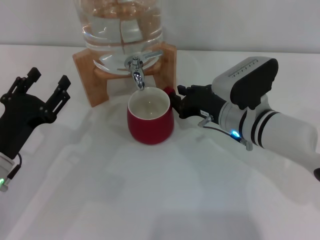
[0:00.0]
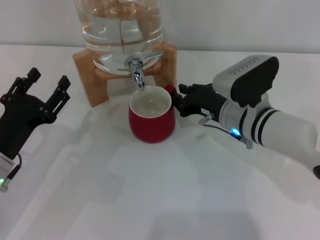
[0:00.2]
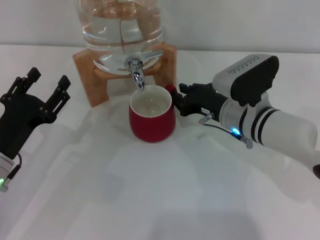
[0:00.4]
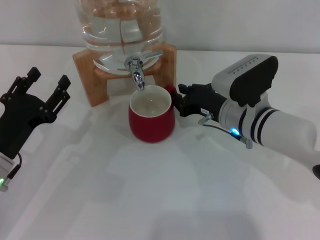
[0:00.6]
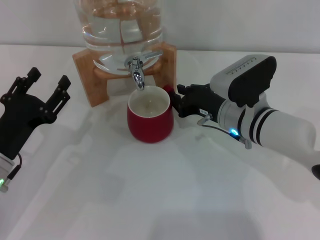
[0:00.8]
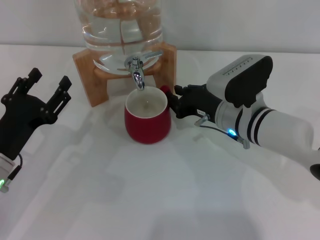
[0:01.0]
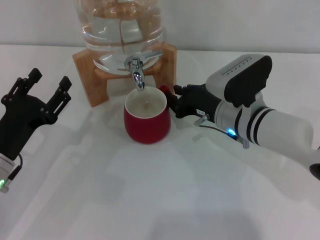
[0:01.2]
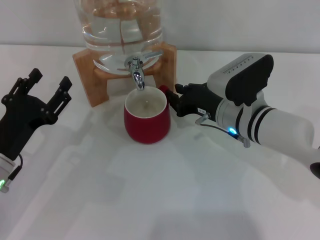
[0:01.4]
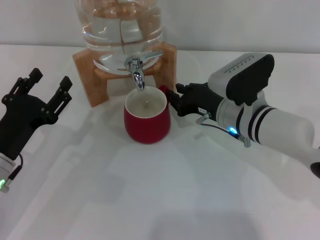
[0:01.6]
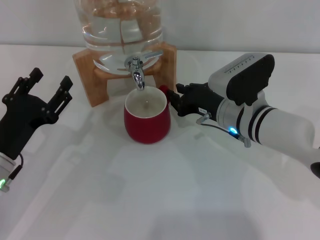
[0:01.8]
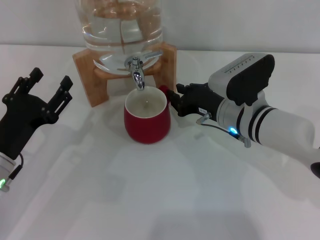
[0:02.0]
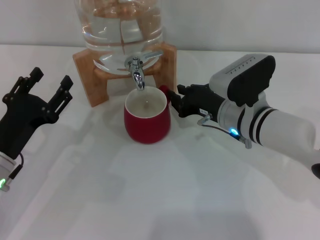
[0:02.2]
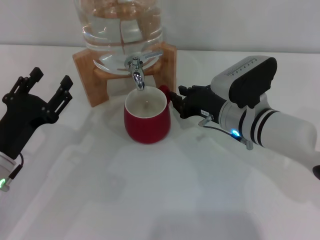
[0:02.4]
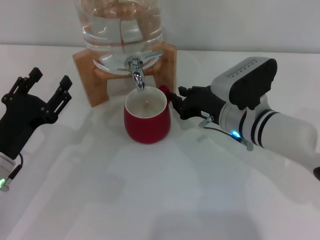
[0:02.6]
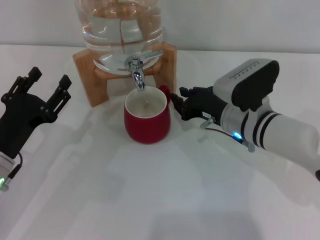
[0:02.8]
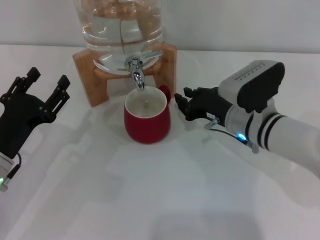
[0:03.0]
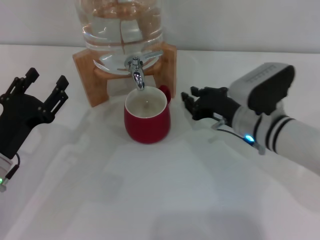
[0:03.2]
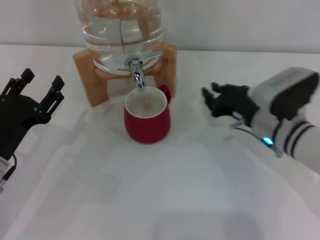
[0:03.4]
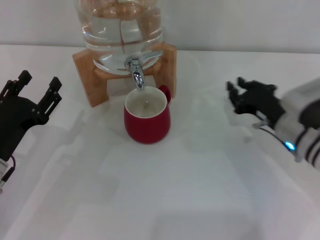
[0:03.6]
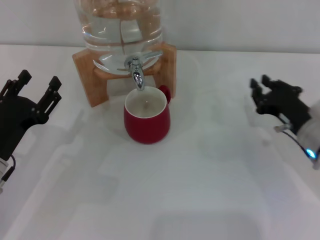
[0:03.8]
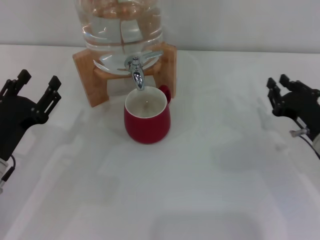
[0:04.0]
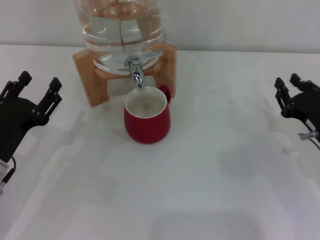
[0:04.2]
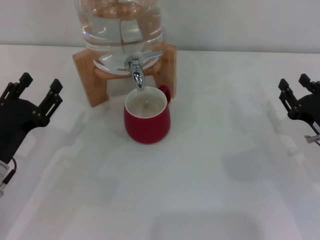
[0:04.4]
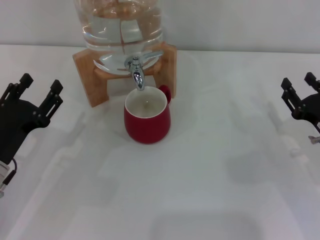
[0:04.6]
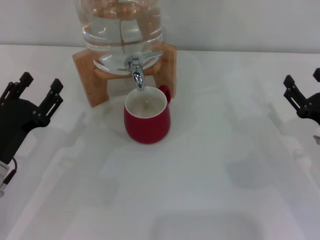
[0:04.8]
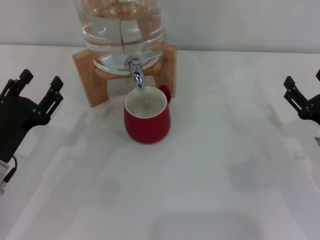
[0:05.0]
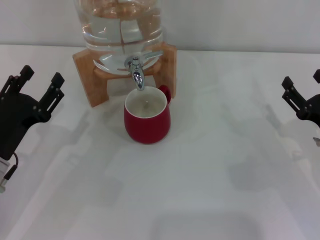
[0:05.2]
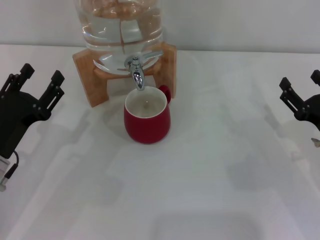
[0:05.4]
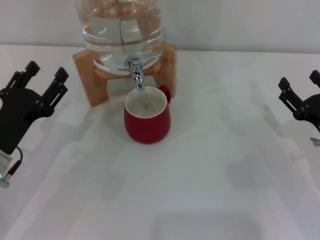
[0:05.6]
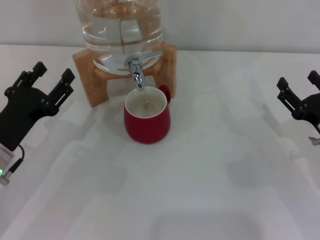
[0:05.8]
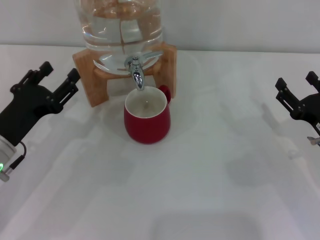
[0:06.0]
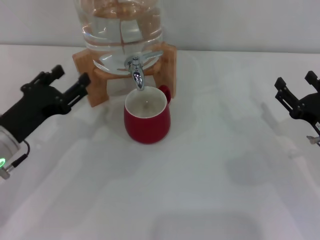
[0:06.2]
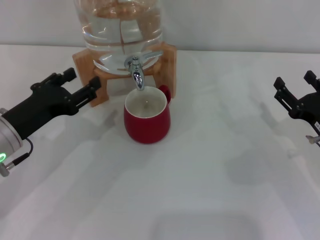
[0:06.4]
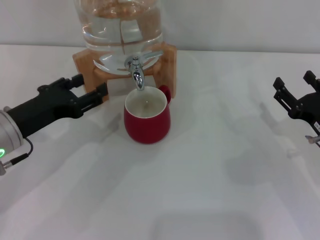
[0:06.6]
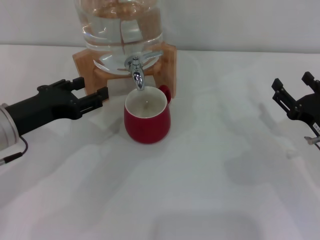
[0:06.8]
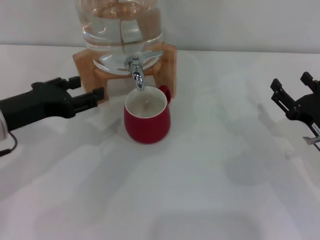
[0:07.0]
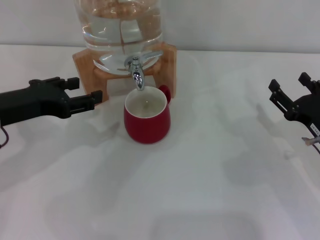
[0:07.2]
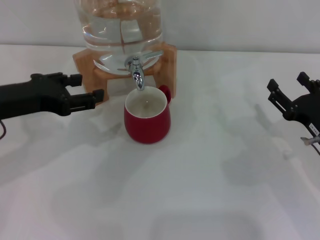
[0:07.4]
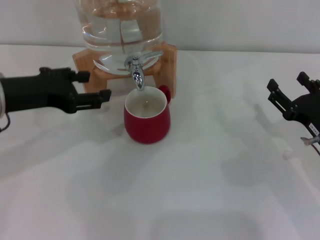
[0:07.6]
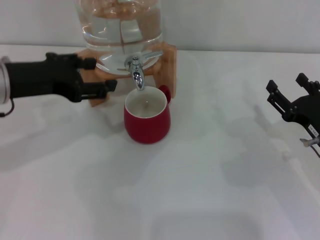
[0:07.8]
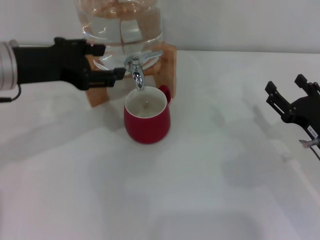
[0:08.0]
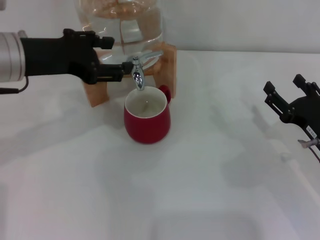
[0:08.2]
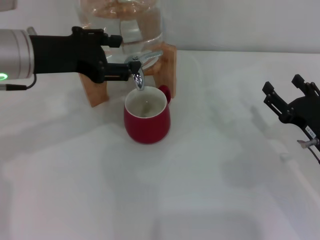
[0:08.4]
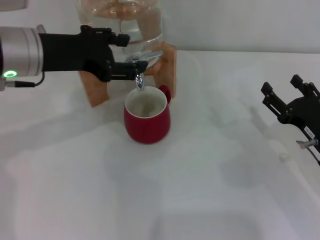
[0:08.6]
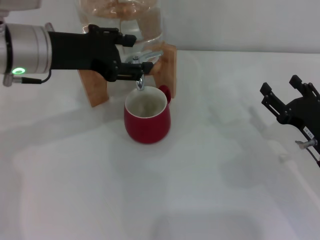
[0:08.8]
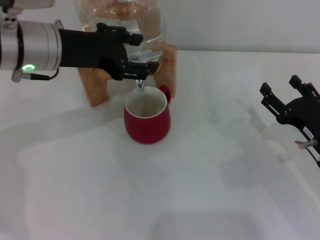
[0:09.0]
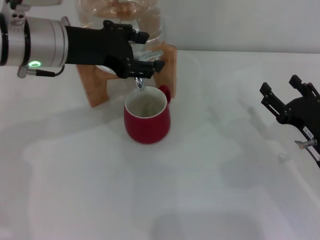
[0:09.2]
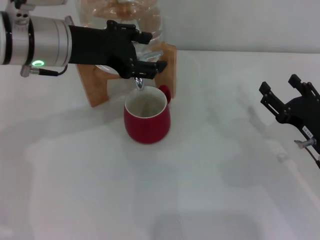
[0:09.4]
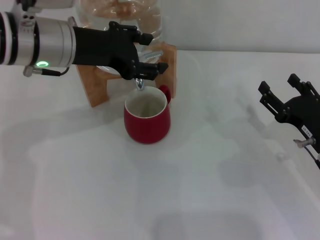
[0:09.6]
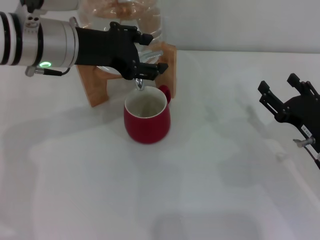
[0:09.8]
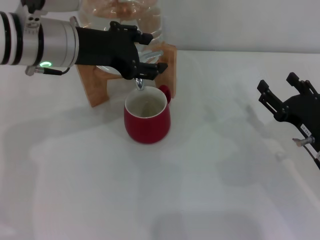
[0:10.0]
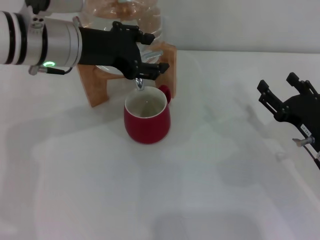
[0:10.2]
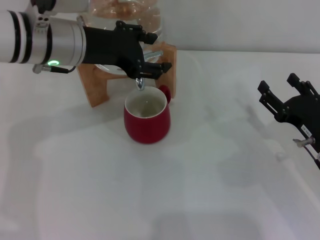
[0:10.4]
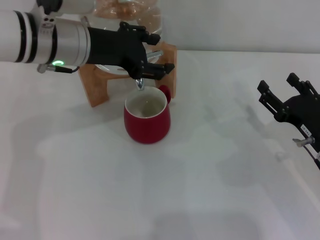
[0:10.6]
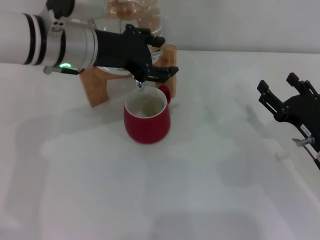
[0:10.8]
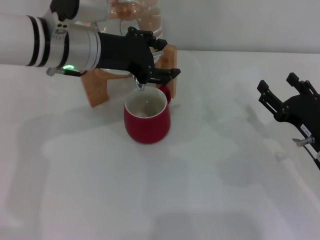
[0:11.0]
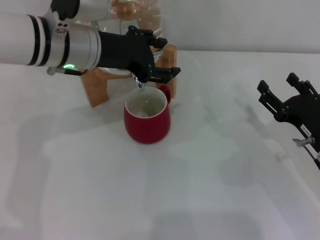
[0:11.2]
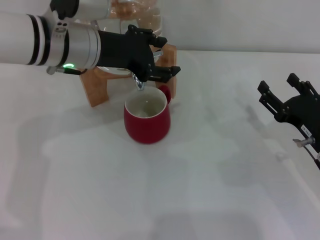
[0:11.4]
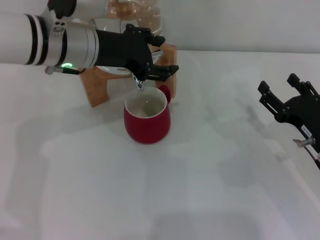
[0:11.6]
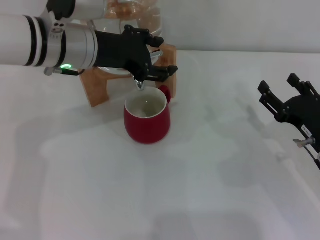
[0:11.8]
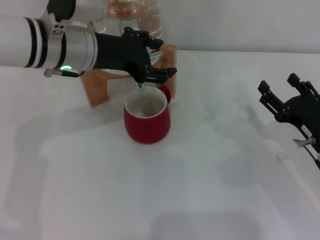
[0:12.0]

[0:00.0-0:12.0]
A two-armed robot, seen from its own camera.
Task of the whole recording: the right gripper pick up the red cup and place it horizontally under the faucet, the left gripper turn on the faucet to fill the cup, and then turn off the faucet.
Step, 0:00.0 to 0:02.8: Move the cup beneath the water dispenser nozzle with the right gripper.
0:00.0 to 0:01.6: Neither gripper changes place.
0:01.6 to 0:03.0: The grippers make only small movements.
0:03.0 to 0:04.4: The right gripper travels to the right and backward by roughly 15 cm.
0:04.4 to 0:06.0: The right gripper opens.
0:06.0 to 0:07.6: The left gripper goes roughly 10 cm upward.
0:07.6 to 0:09.0: The left gripper travels to the right and forward by roughly 10 cm.
0:09.0 to 0:12.0: The grippers make only small movements.

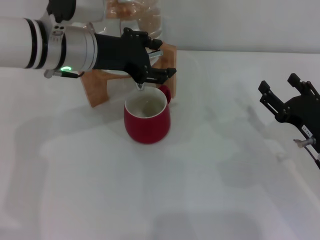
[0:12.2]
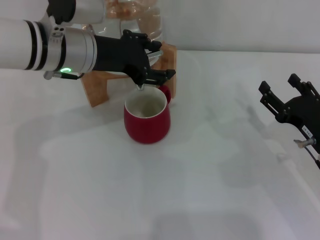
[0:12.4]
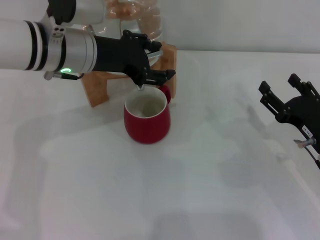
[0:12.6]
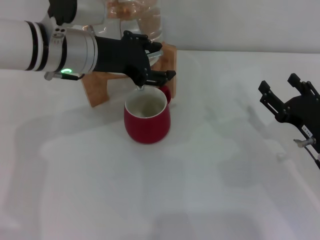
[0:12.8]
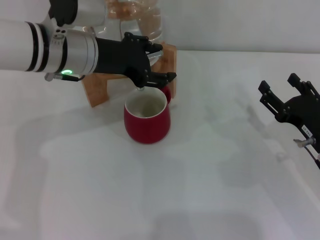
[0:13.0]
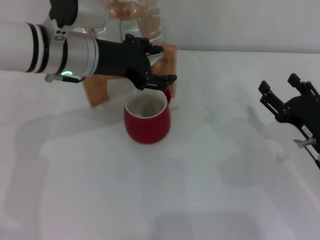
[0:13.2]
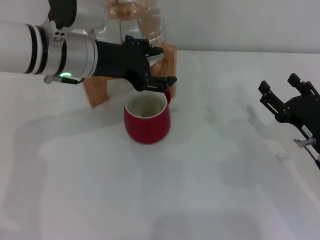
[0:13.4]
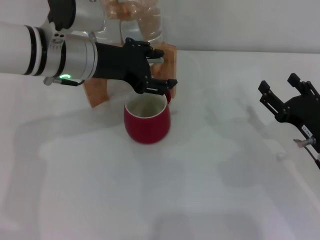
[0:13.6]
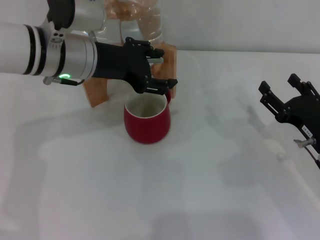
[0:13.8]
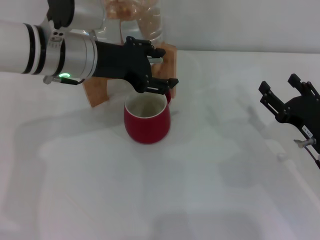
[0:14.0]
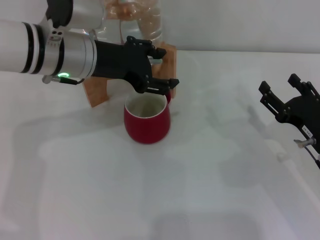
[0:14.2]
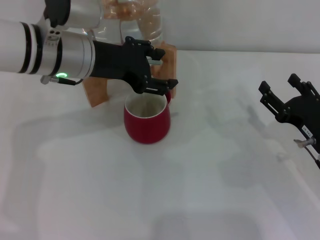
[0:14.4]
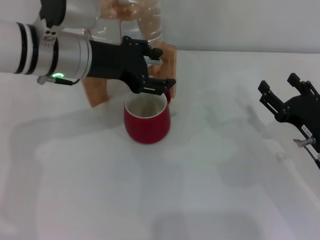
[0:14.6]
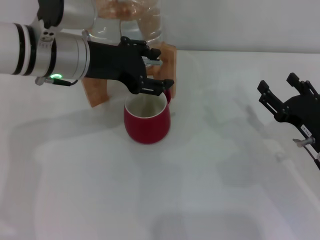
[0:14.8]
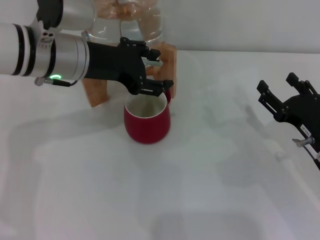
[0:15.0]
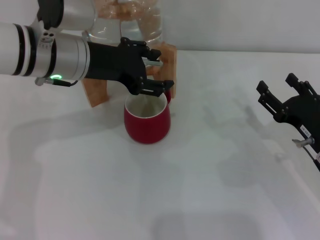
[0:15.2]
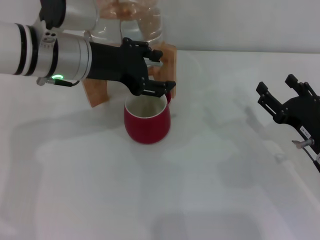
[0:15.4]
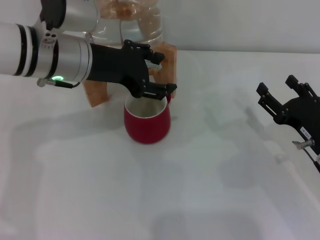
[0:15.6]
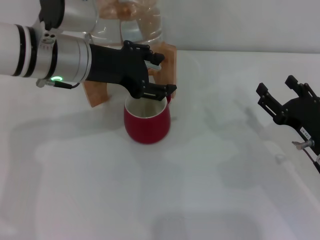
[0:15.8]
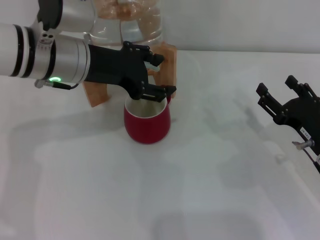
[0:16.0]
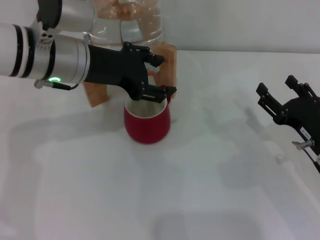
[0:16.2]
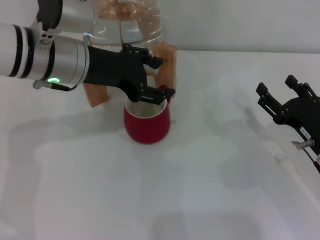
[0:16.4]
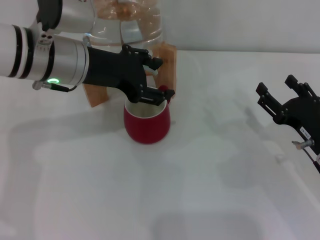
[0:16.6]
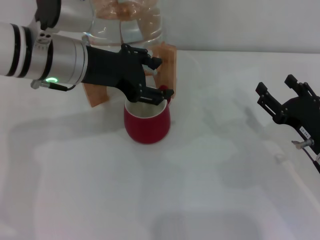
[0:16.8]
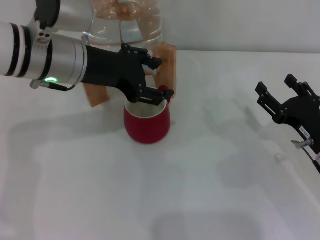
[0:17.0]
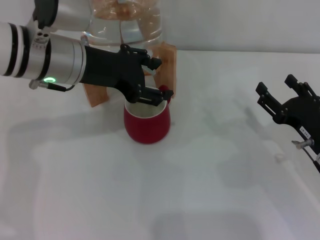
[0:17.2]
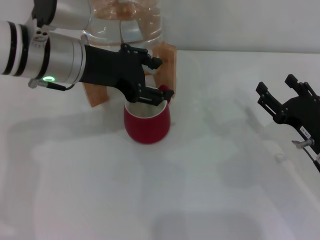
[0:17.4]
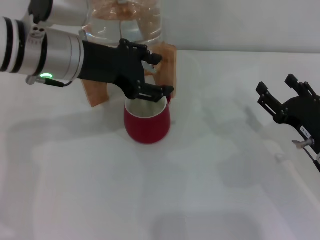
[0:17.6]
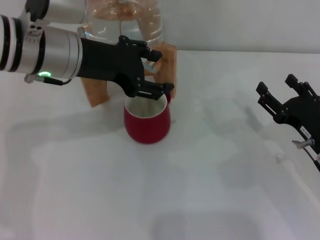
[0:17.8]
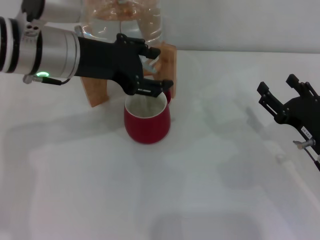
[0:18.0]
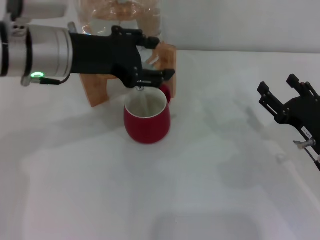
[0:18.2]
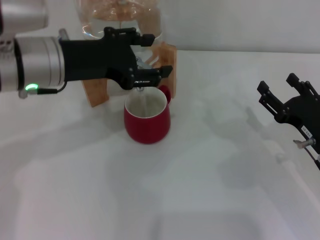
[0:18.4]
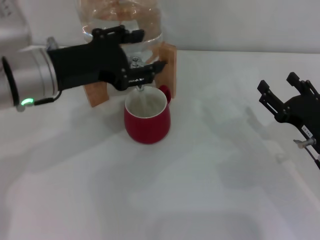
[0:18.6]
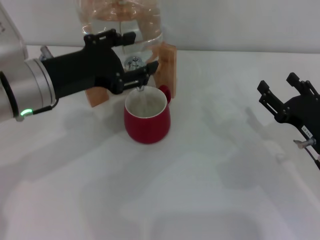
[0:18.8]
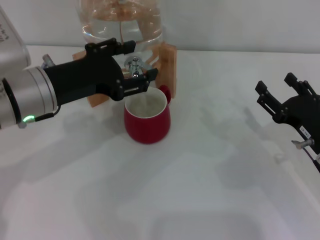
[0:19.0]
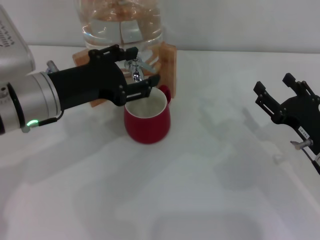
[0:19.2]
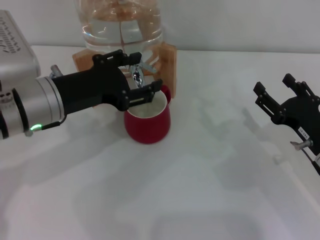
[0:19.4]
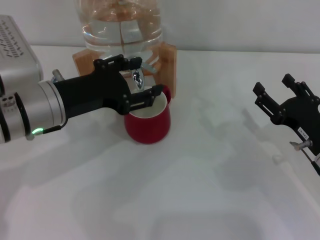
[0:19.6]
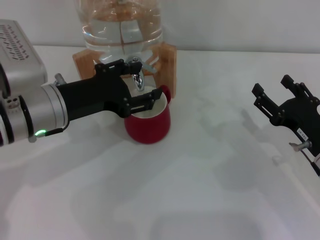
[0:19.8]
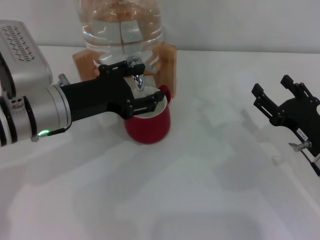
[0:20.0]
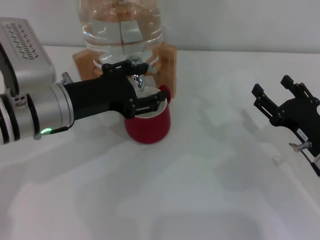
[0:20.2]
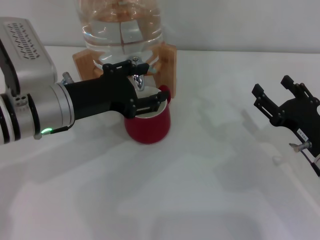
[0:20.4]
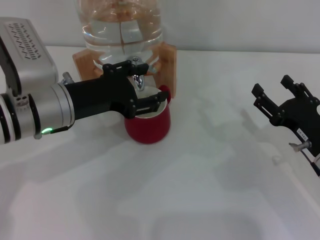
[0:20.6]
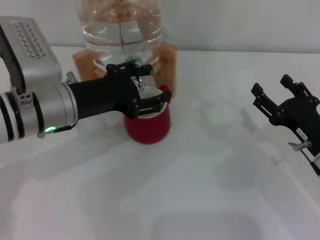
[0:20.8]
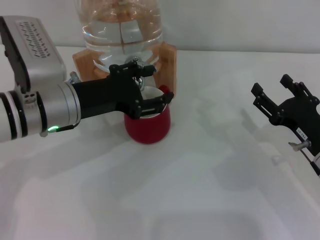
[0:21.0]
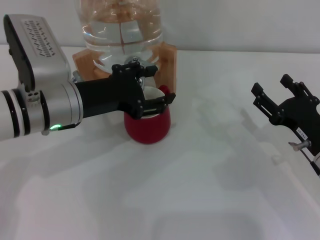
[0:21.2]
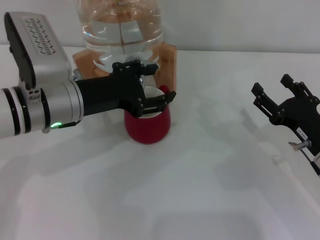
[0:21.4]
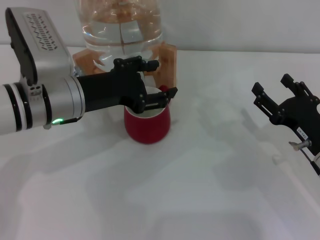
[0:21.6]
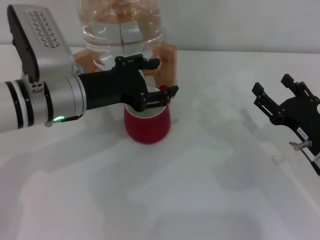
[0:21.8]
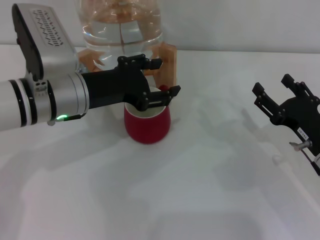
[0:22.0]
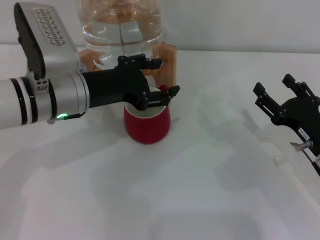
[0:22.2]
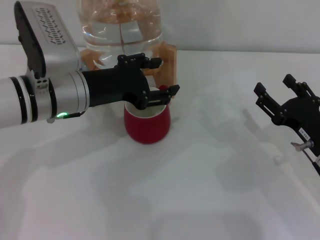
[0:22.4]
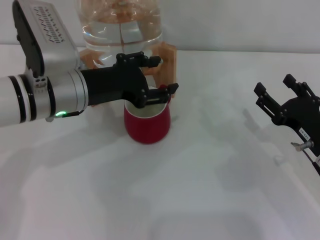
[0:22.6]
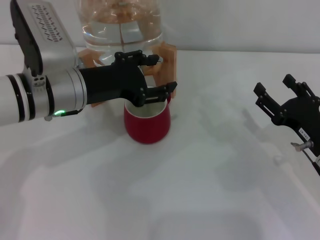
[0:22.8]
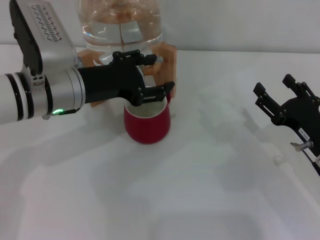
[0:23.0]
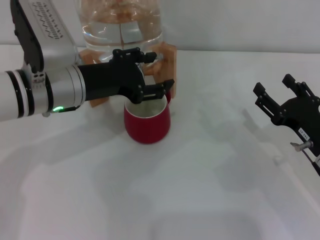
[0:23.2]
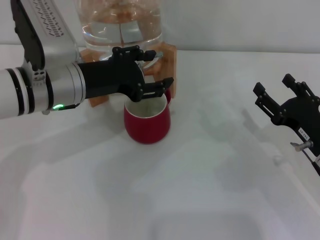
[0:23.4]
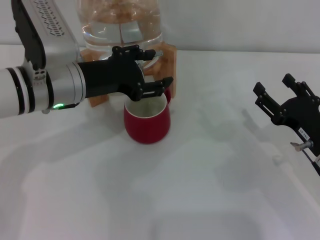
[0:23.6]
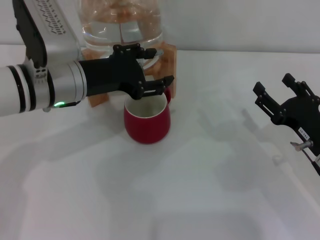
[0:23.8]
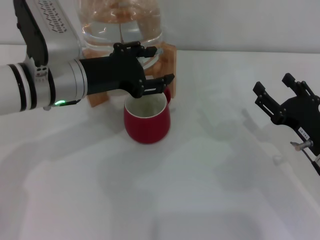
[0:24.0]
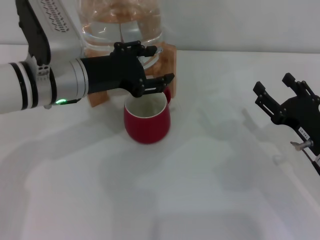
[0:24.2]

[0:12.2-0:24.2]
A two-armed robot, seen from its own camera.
Task of the whole recording: the right gripper pick up the red cup and place it horizontally under the faucet, the left gripper turn on the faucet to fill the cup, and then turn off the faucet.
Step, 0:12.2 to 0:17.6: Open the dispenser valve and fill the cup with water with the left gripper.
0:12.2 to 0:13.8: Both grippers stay put.
0:13.8 to 0:15.2: The two grippers keep their place.
0:15.2 to 0:16.6: The two grippers keep their place.
0:16.6 to 0:18.2: The grippers move only a little.
0:18.2 to 0:19.8: The left gripper goes about 5 cm downward.
0:19.8 to 0:24.2: The grippers move only a little.
